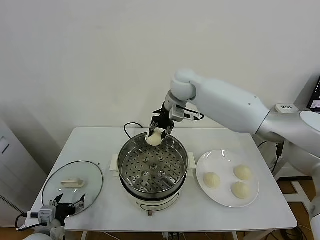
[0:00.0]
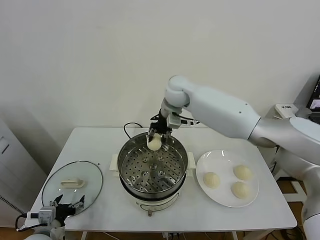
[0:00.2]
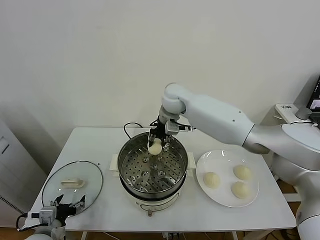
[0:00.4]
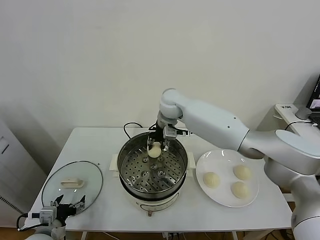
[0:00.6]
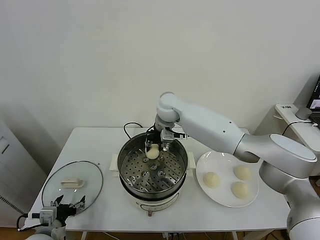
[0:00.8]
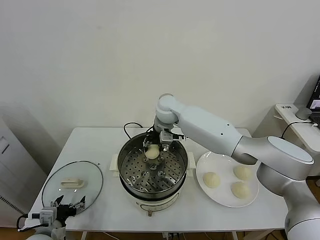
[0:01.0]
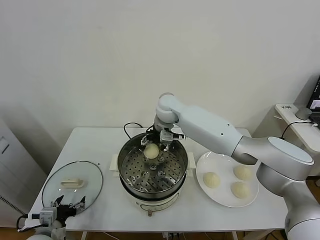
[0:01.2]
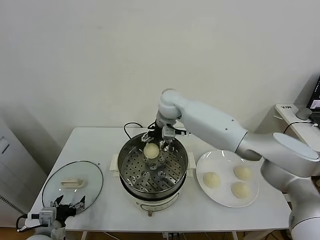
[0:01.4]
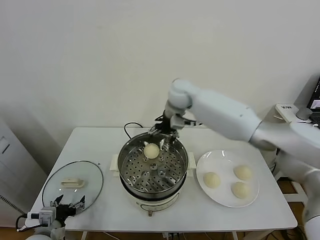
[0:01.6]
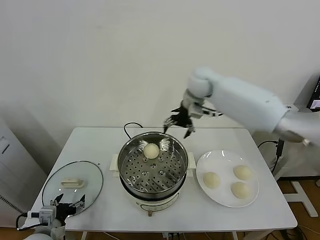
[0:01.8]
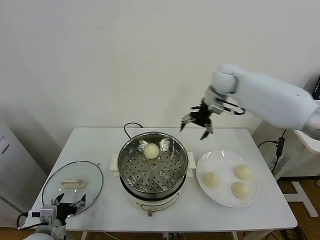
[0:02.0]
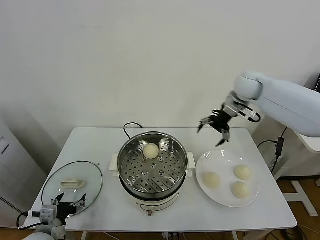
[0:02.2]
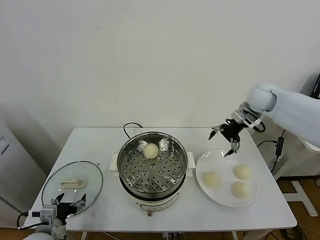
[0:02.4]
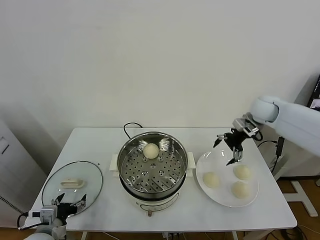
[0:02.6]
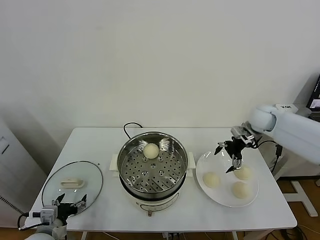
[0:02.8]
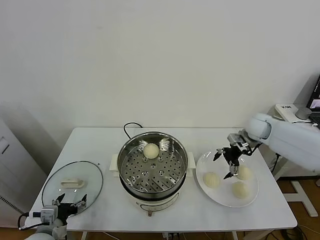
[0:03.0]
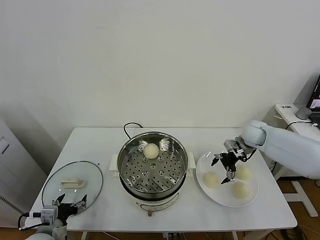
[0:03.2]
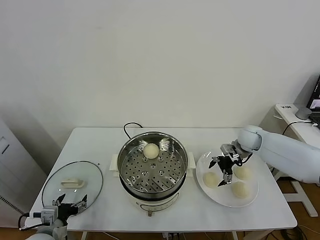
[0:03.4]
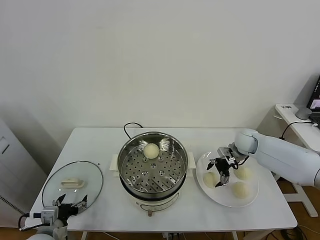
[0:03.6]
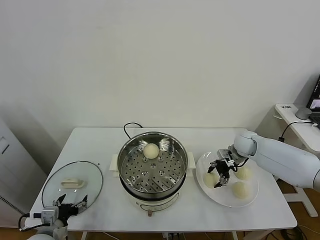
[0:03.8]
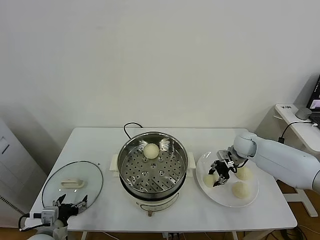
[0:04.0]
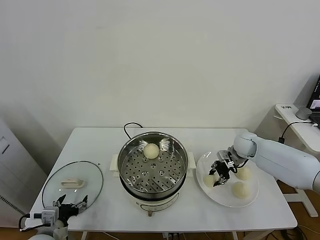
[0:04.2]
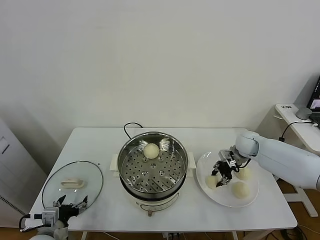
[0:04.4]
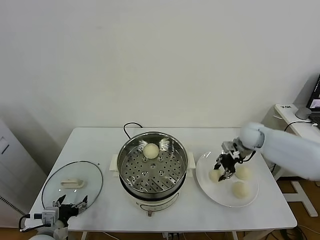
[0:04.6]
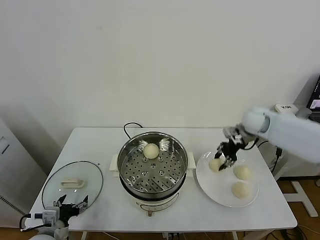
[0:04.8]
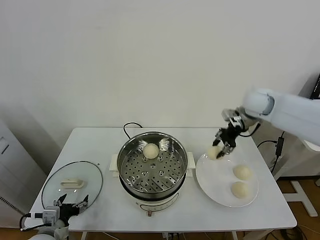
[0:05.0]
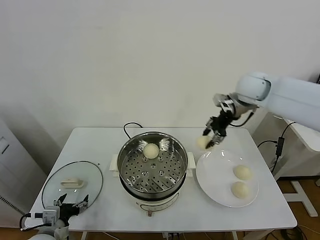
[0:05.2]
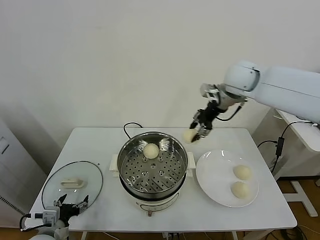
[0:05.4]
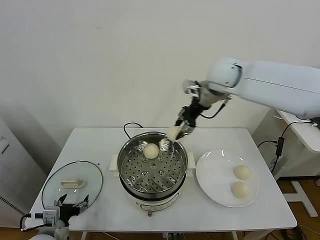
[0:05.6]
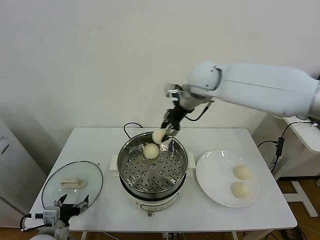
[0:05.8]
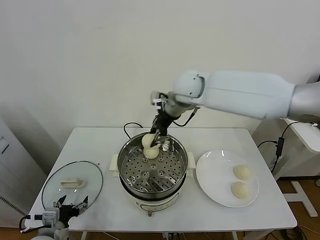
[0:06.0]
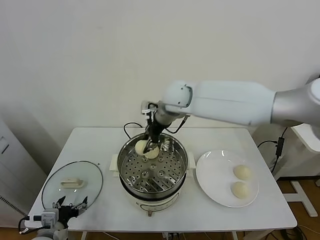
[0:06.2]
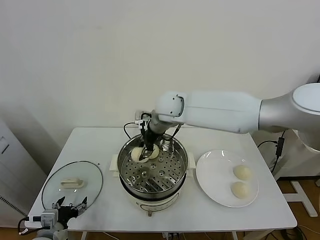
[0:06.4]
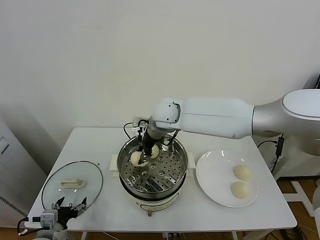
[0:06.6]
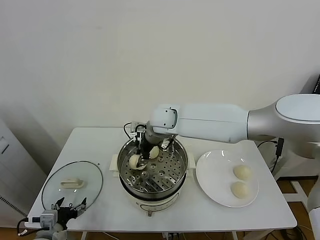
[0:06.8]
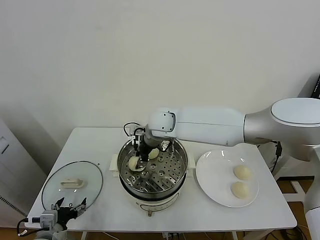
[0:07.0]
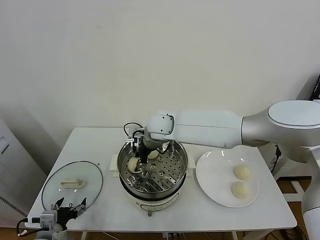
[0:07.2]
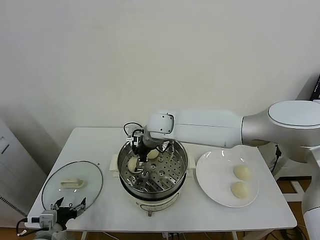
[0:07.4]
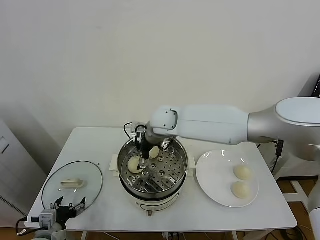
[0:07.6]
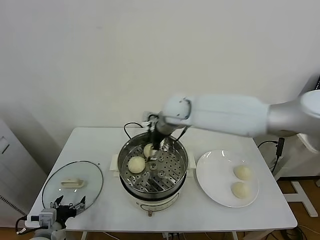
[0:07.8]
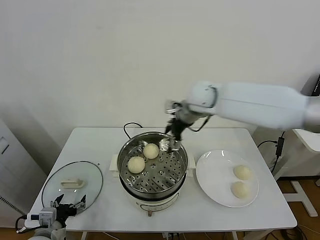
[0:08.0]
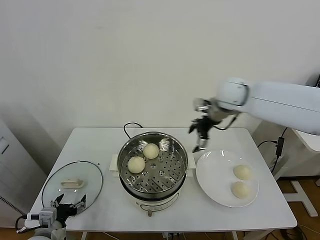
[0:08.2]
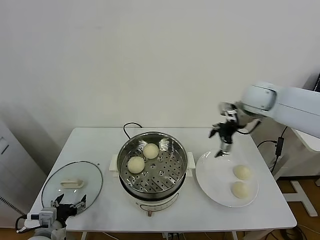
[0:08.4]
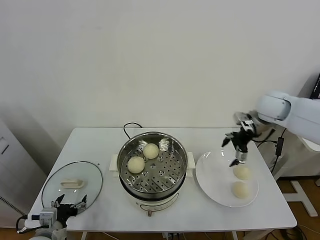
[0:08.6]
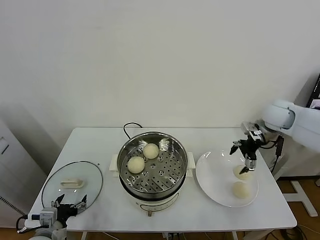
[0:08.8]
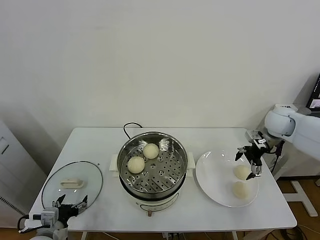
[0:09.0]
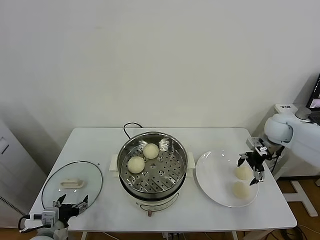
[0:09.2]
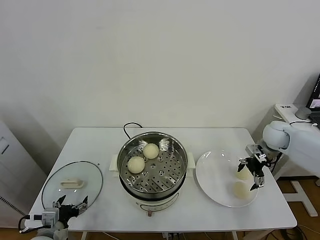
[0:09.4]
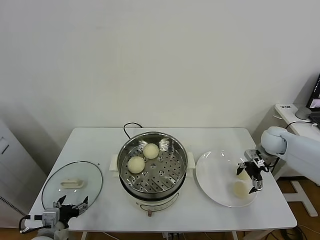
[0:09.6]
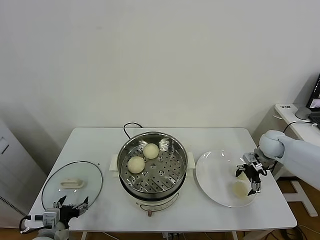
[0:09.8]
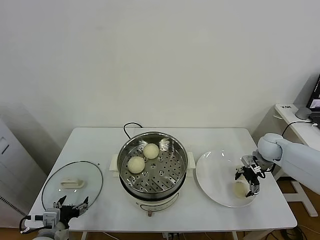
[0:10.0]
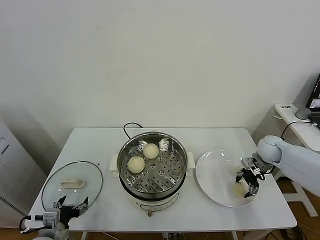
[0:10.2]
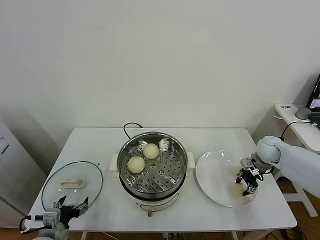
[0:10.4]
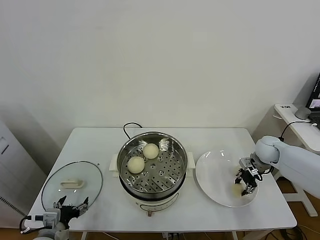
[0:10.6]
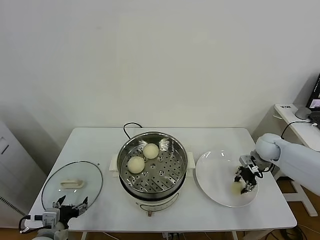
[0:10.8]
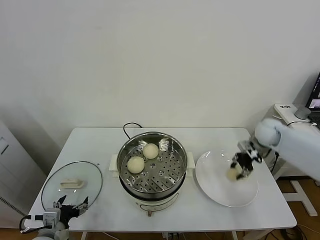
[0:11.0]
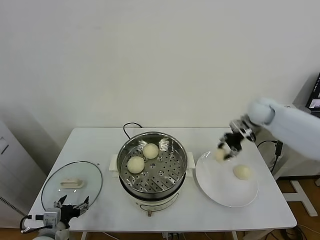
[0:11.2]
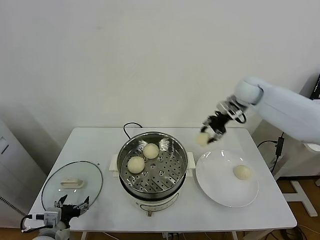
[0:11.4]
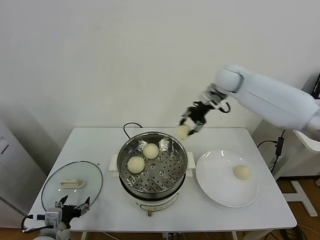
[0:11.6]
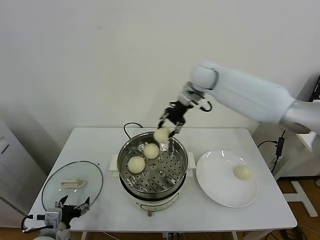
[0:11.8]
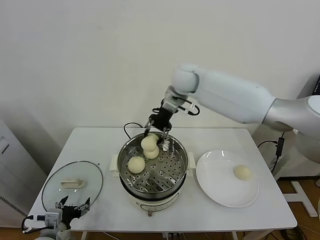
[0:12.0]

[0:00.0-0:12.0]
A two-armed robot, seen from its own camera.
Task of the whole recording: take steamed baozi put them in steamer.
Step, 0:01.6 to 0:03.8: Grasp the baozi in the plate with right gripper.
Step, 0:04.2 to 0:07.6: Place the baozi on the steamer with right gripper.
Step, 0:07.8 to 0:10.4: Grasp the baozi in the plate with right gripper.
0:00.0 to 0:01.6: The right gripper opens its fingers.
0:01.6 to 0:03.0: The right gripper heads to the right and downward, covering roughly 30 cm.
0:03.0 to 0:04.4: The right gripper closes its fingers.
0:04.4 to 0:06.0: The right gripper is displaced to the left and upward by roughly 35 cm.
0:06.0 to 0:07.6: The right gripper is displaced downward by about 10 cm, and opens.
0:07.6 to 0:09.0: The right gripper heads to the right, covering roughly 40 cm.
0:09.0 to 0:10.4: The right gripper shifts roughly 10 cm downward, and closes its fingers.
0:10.4 to 0:12.0: The right gripper moves to the left and upward, about 40 cm.

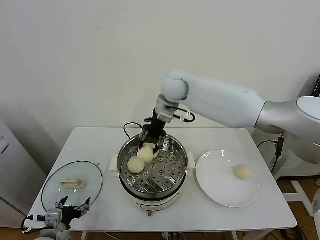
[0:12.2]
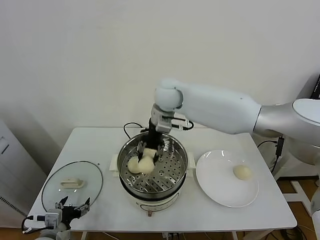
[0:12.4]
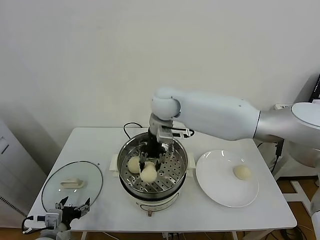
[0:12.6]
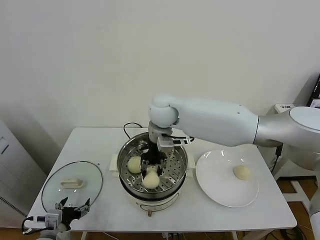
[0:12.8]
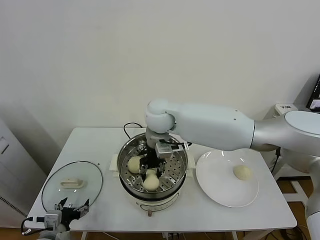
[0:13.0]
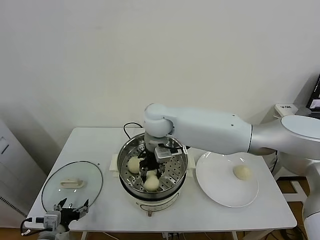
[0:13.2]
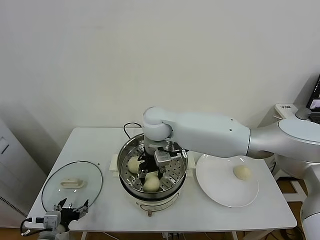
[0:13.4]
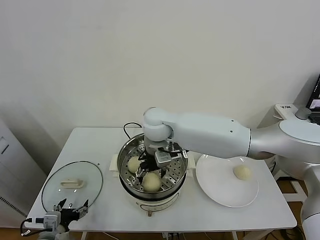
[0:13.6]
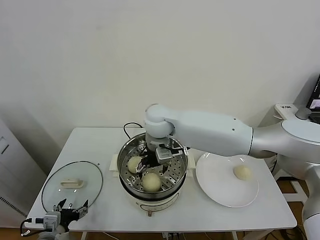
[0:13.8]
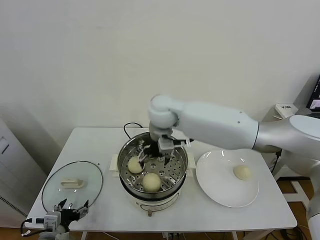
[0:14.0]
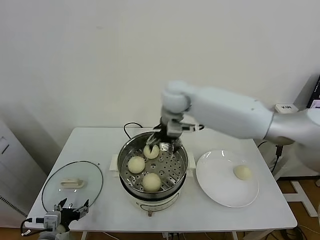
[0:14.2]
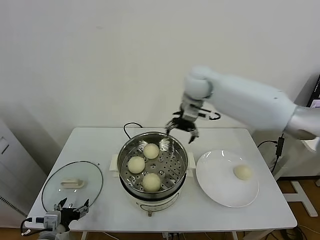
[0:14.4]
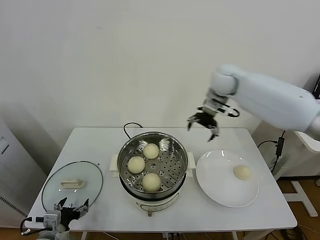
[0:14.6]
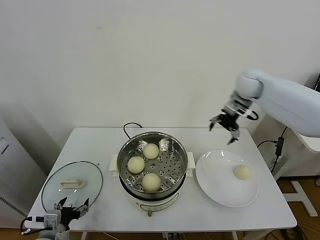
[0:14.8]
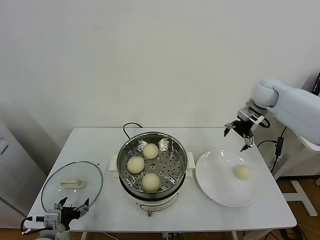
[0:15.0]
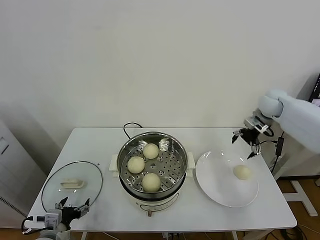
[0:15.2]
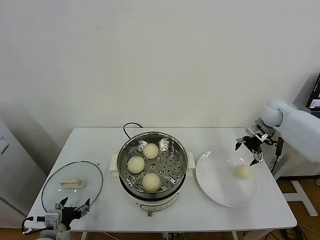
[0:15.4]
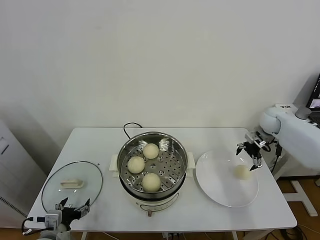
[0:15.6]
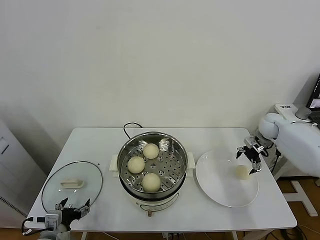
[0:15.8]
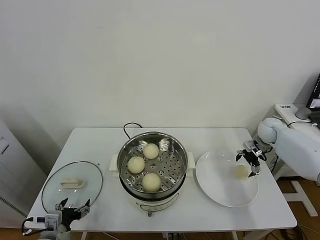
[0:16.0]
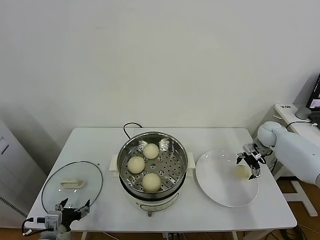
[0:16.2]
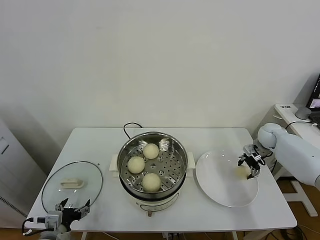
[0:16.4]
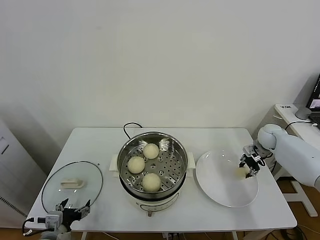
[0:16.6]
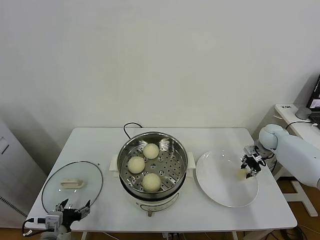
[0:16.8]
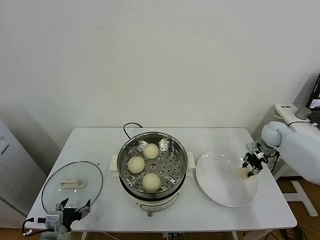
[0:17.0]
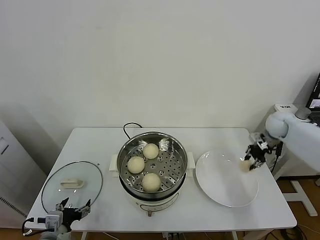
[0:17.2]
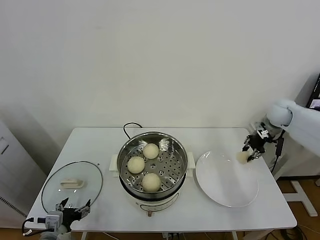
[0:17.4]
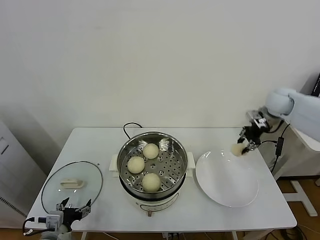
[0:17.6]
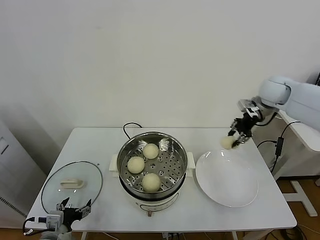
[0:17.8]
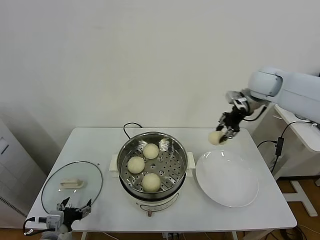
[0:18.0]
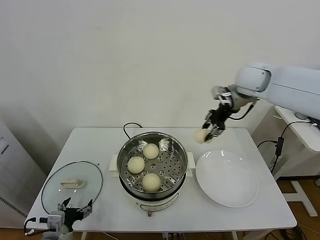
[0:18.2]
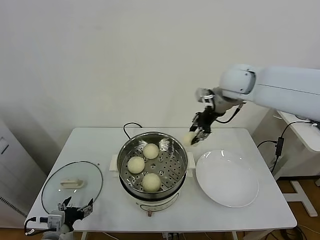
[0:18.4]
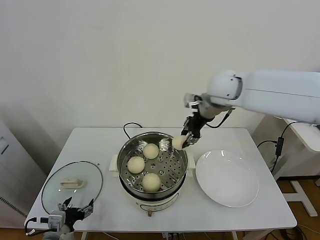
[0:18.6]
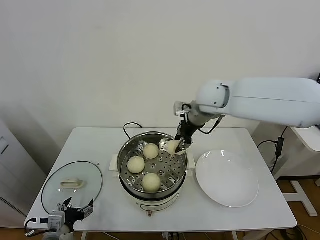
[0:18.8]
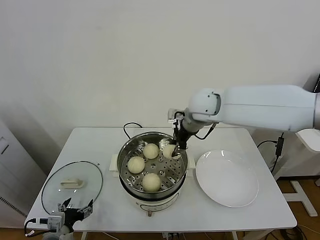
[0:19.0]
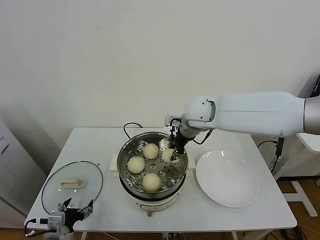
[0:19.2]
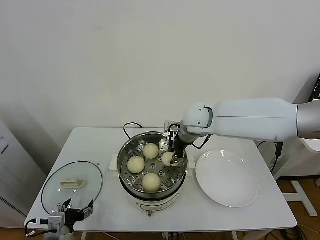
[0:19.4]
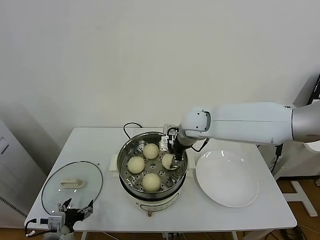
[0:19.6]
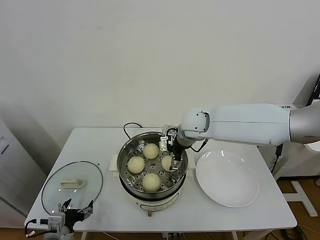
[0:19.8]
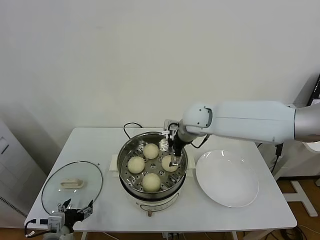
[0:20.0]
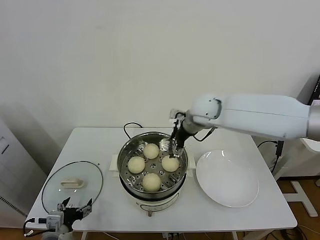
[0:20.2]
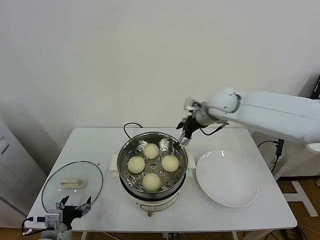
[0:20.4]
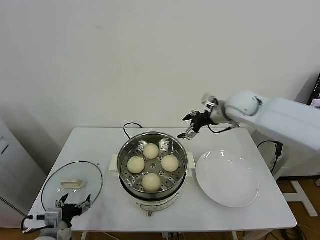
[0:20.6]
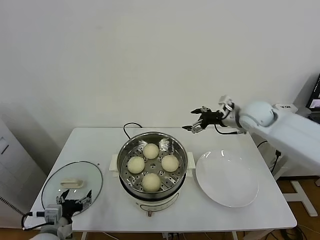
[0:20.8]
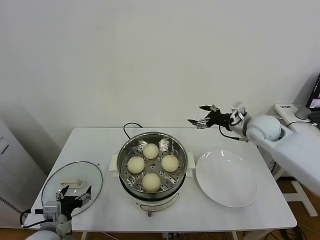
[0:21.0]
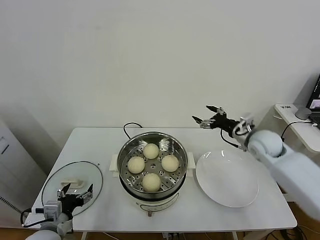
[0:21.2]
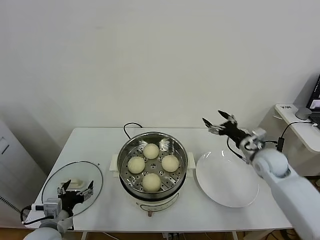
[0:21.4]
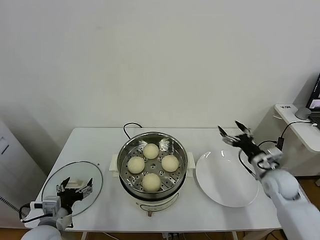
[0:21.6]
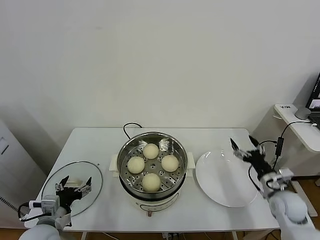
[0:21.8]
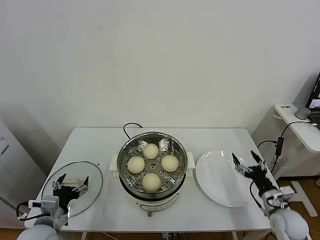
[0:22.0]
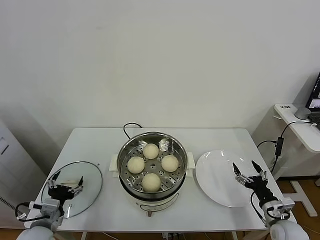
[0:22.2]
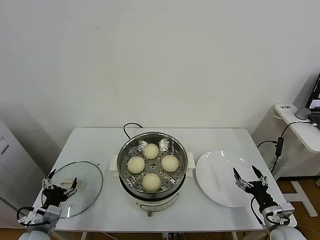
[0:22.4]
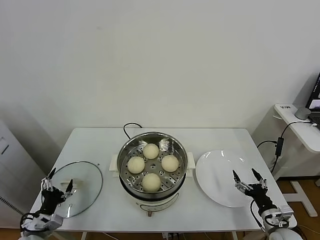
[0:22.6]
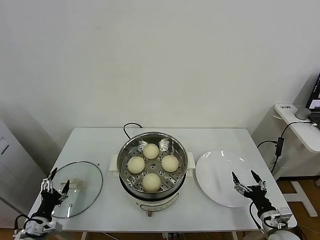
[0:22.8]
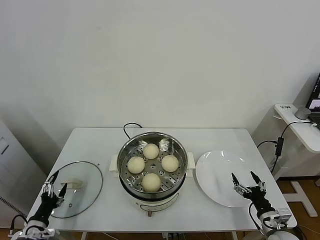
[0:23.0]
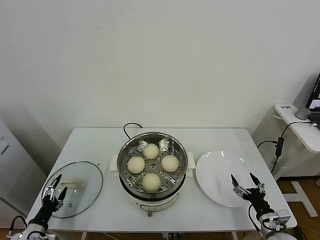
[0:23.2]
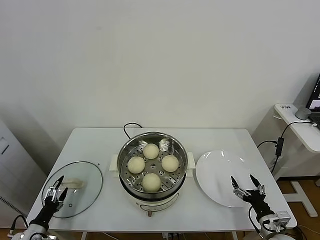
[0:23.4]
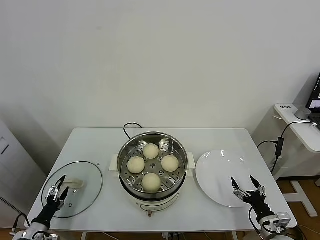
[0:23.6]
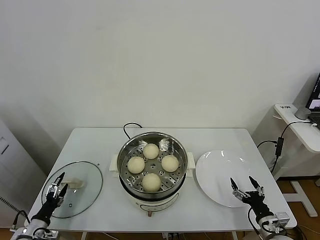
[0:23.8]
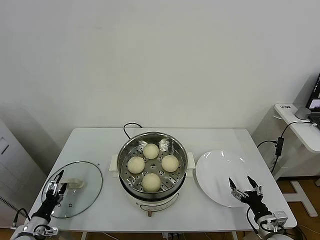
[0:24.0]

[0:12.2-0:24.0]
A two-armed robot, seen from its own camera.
Task of the whole recording: take steamed baozi put them in steamer.
Step, 0:13.8 to 0:16.6: Grasp the baozi in the plate with right gripper.
Step, 0:16.8 to 0:20.0: Place the baozi on the steamer with right gripper.
0:12.2 to 0:13.6: The right gripper goes approximately 10 cm backward and downward, and opens its fingers.
0:13.6 to 0:15.2: The right gripper heads to the right, covering some 40 cm.
0:15.2 to 0:16.6: The right gripper moves downward, about 15 cm, and closes up.
0:16.6 to 0:18.2: The right gripper shifts about 35 cm upward and to the left.
0:18.2 to 0:19.6: The right gripper is displaced to the left and downward by roughly 20 cm, and opens up.
0:19.6 to 0:21.0: The right gripper moves to the right, approximately 20 cm, and opens.
0:21.0 to 0:22.6: The left gripper shifts about 10 cm to the left and downward. Meanwhile the right gripper shifts roughly 35 cm backward and downward.
0:22.6 to 0:24.0: The left gripper travels downward and to the left by roughly 10 cm.
